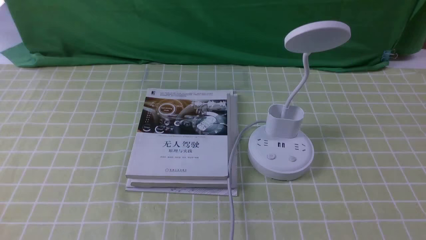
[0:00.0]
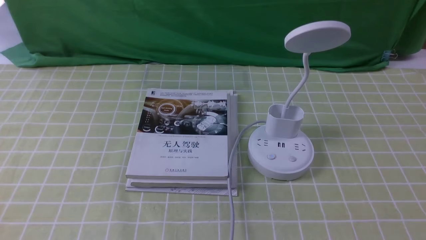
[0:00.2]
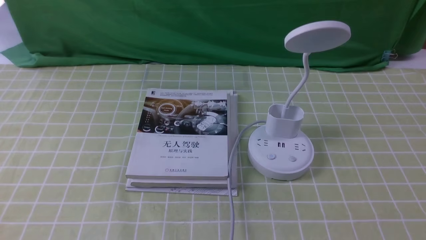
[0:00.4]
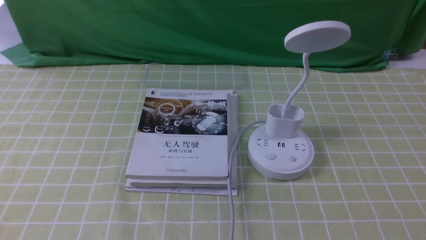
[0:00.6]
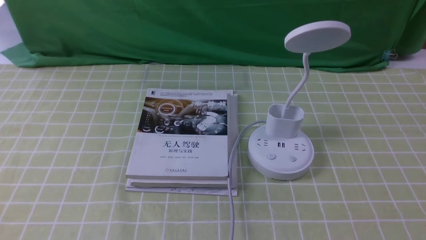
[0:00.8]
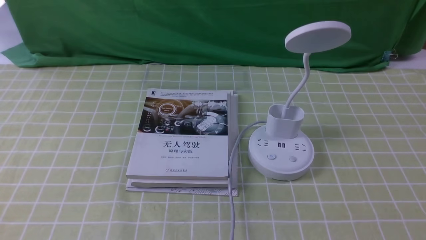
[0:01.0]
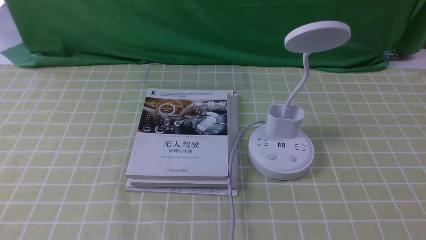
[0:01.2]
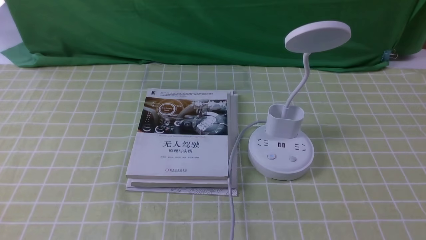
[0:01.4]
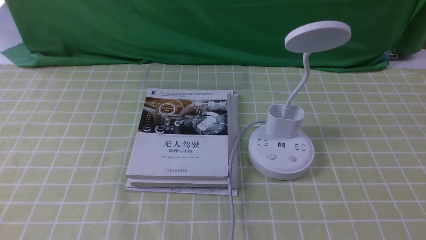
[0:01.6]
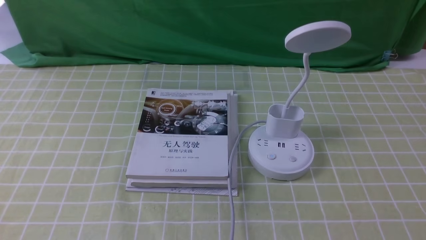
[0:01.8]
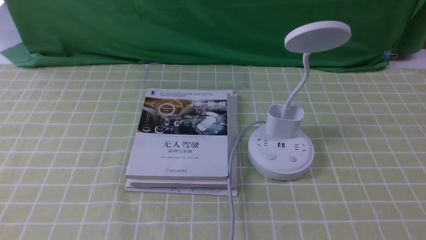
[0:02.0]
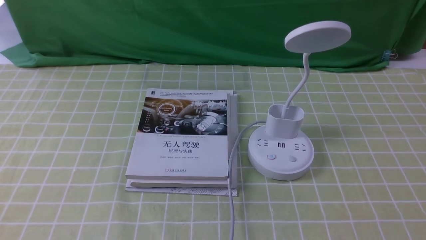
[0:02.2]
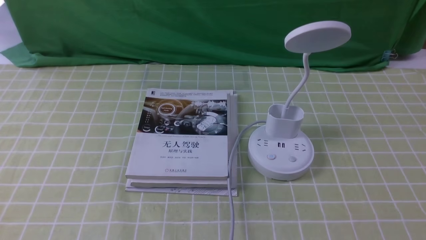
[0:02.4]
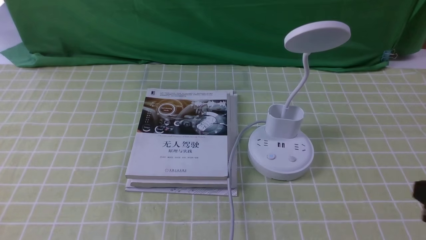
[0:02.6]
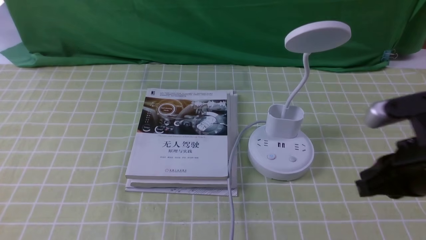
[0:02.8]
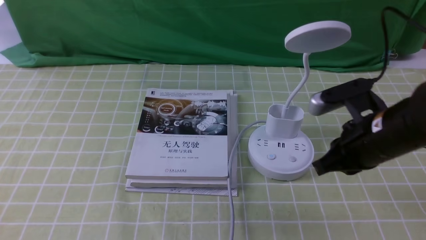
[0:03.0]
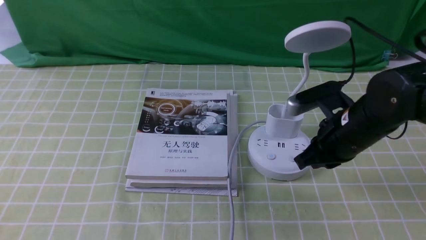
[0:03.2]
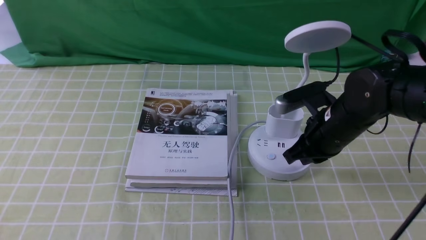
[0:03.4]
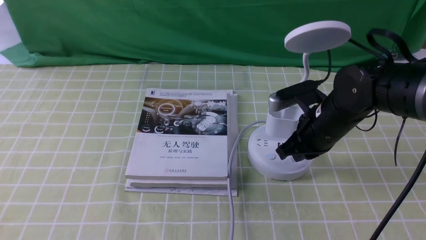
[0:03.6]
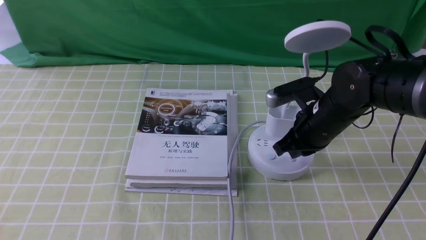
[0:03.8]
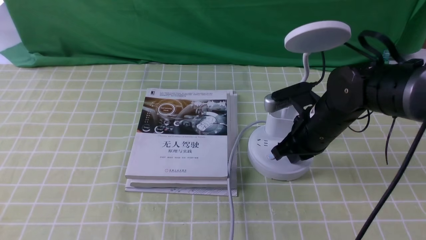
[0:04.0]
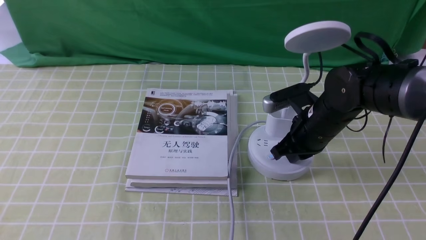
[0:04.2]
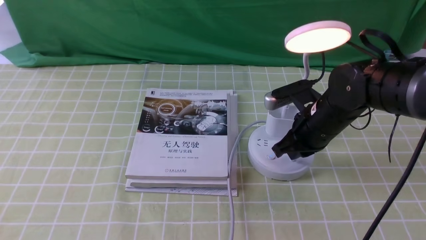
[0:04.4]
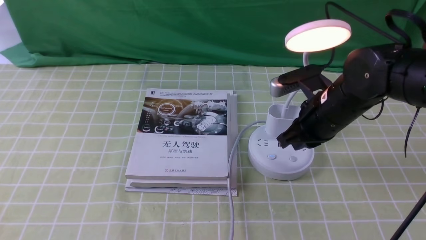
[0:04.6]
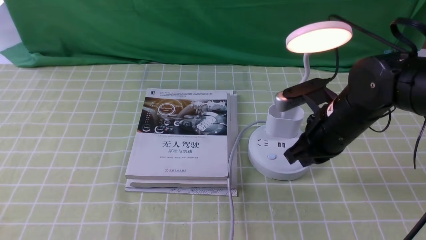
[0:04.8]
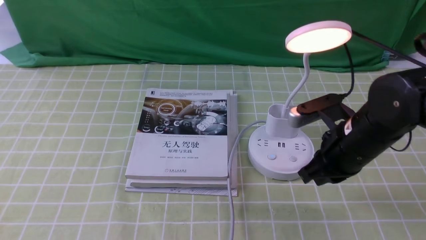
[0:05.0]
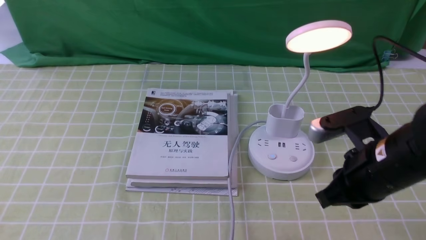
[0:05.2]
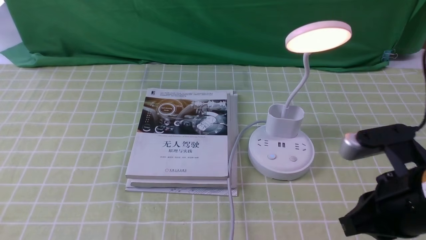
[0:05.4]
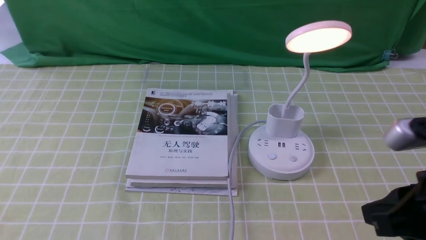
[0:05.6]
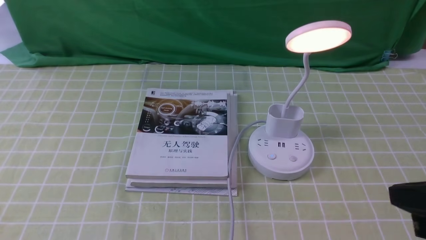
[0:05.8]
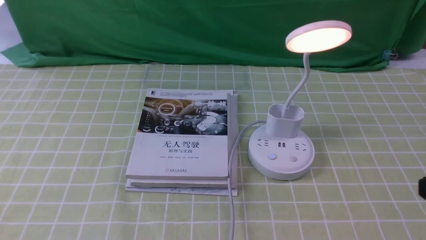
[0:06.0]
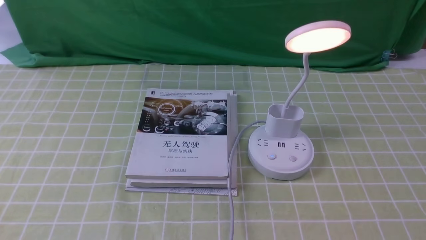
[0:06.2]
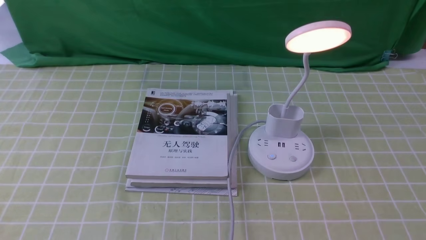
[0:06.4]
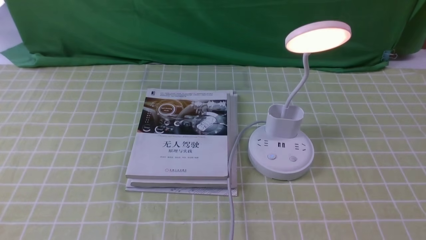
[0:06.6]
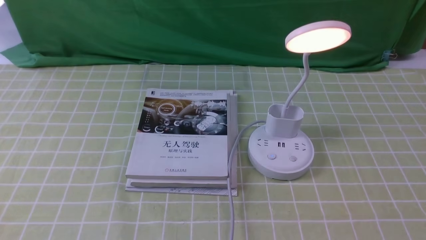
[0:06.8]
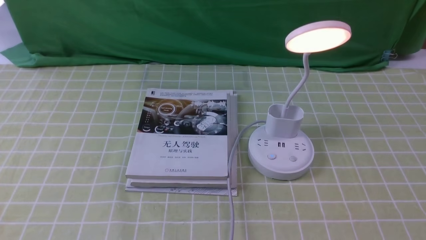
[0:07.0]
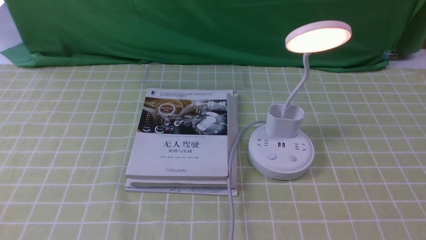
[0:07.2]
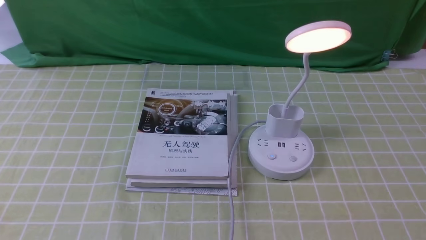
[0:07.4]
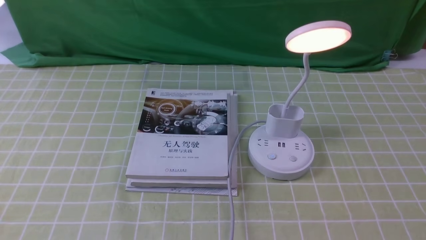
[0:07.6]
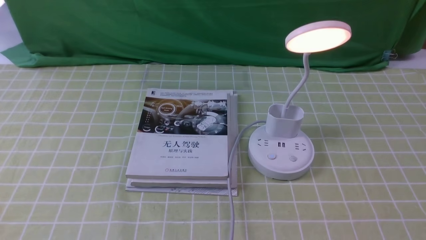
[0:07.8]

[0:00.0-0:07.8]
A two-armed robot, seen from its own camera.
Step, 0:00.0 to 0:04.6: use the right arm to press the button switch on the lamp holder.
0:01.6 to 0:03.2: The right gripper heads forward and to the left, covering some 30 cm, and closes up.
0:04.6 to 0:06.2: The right gripper shifts roughly 30 cm backward and to the right.

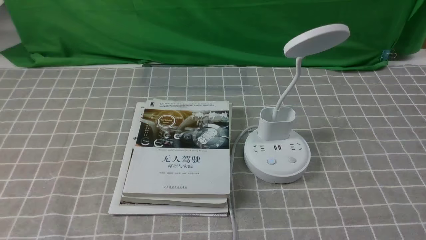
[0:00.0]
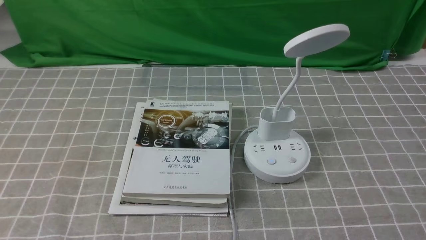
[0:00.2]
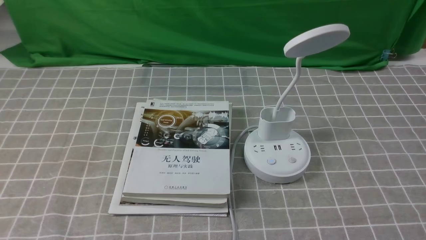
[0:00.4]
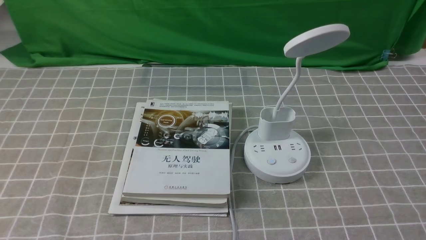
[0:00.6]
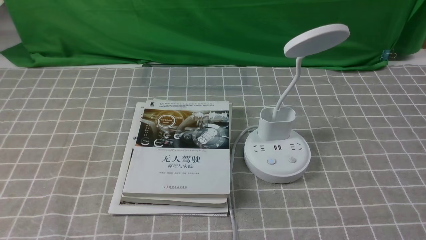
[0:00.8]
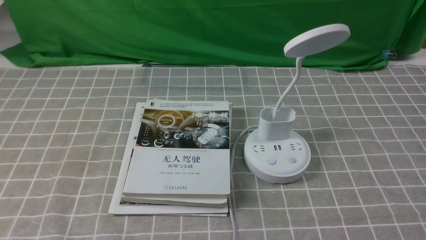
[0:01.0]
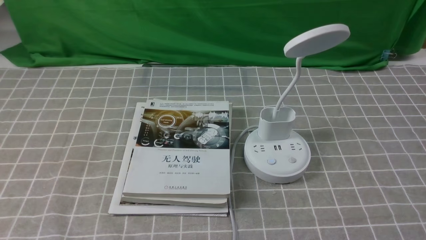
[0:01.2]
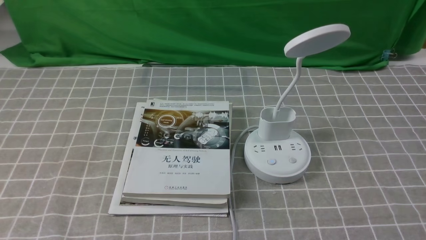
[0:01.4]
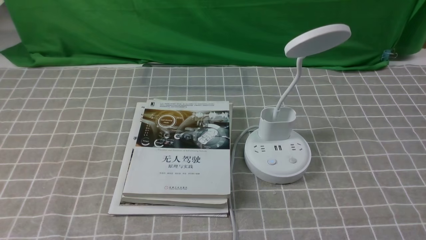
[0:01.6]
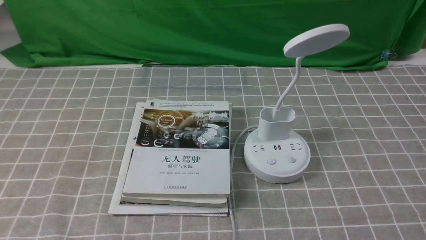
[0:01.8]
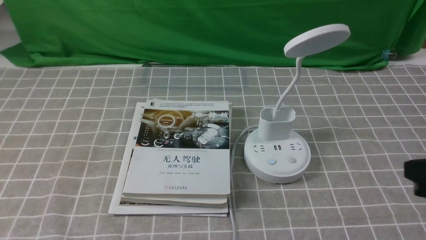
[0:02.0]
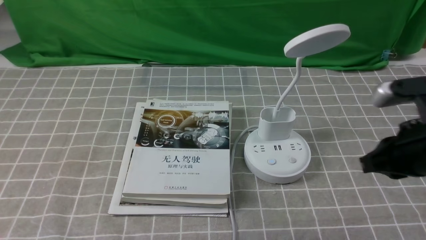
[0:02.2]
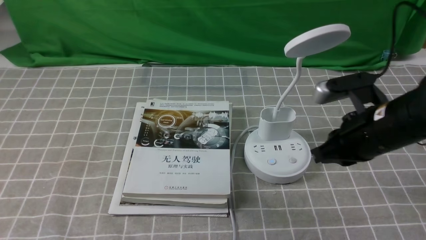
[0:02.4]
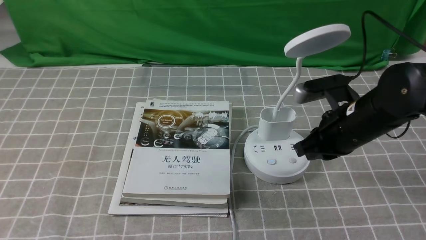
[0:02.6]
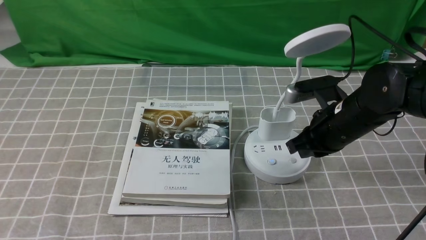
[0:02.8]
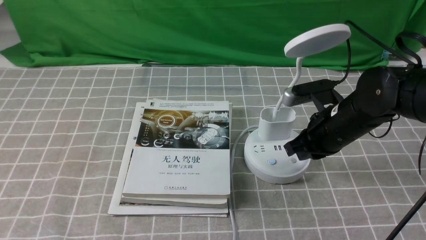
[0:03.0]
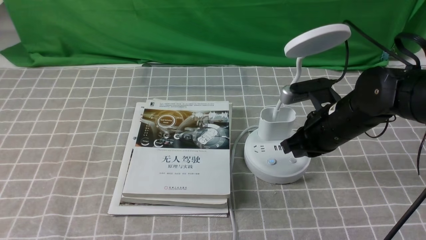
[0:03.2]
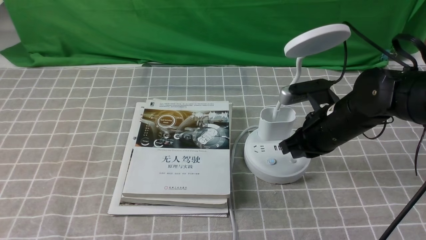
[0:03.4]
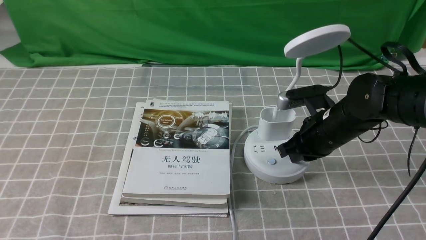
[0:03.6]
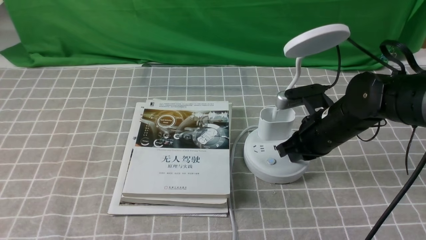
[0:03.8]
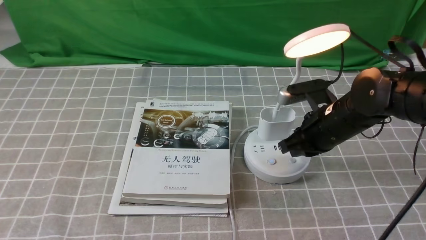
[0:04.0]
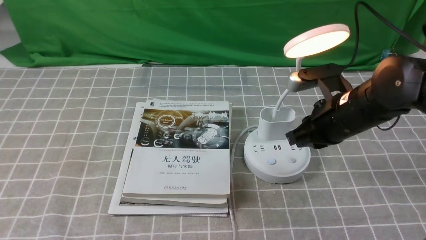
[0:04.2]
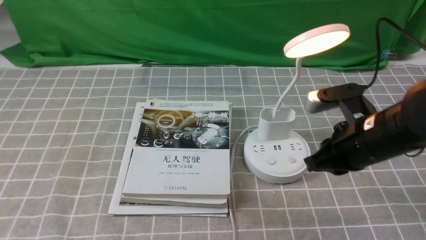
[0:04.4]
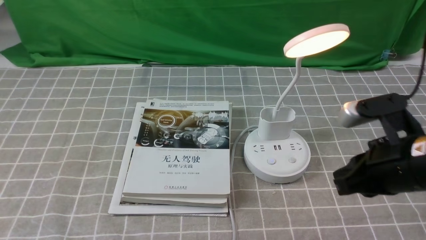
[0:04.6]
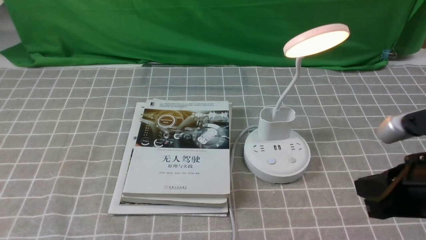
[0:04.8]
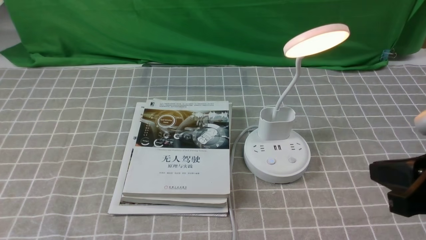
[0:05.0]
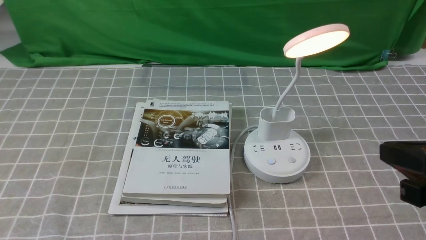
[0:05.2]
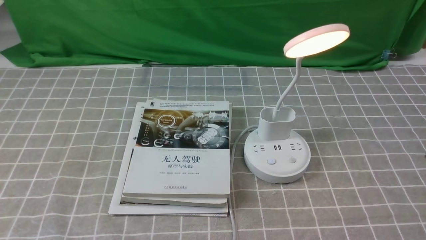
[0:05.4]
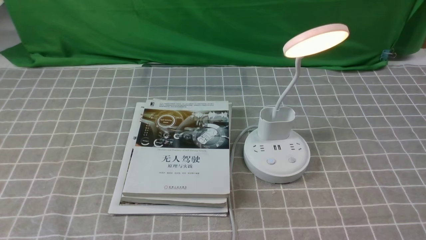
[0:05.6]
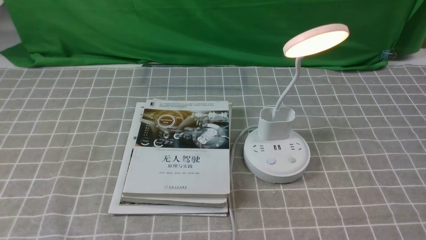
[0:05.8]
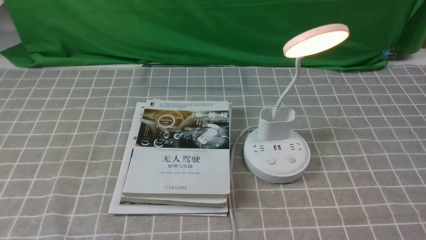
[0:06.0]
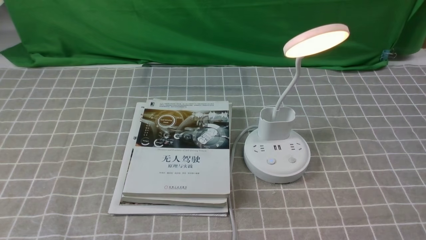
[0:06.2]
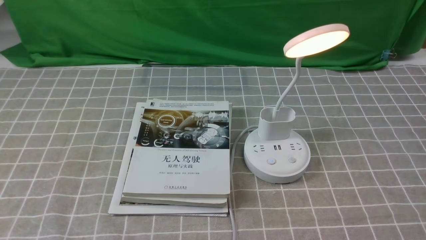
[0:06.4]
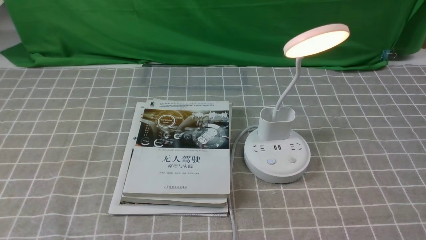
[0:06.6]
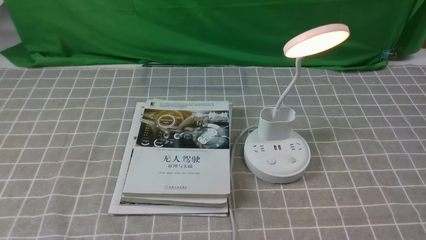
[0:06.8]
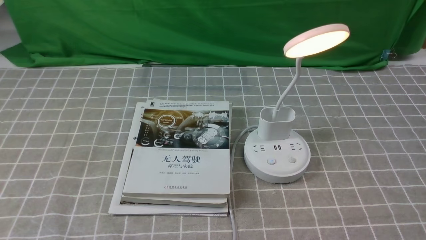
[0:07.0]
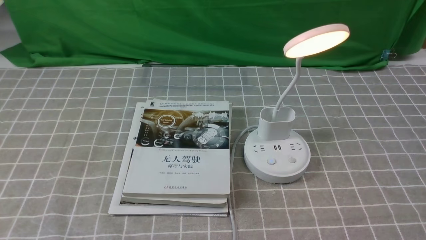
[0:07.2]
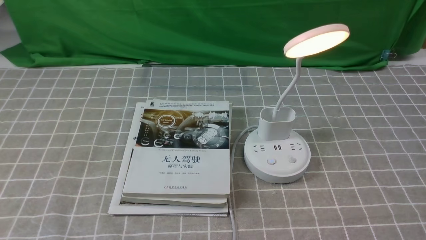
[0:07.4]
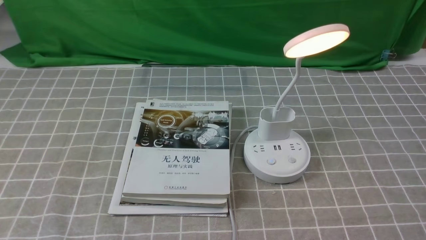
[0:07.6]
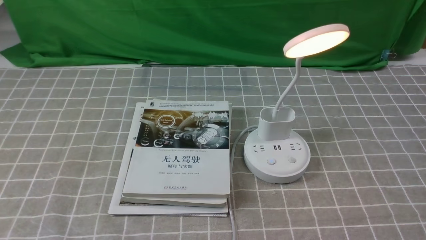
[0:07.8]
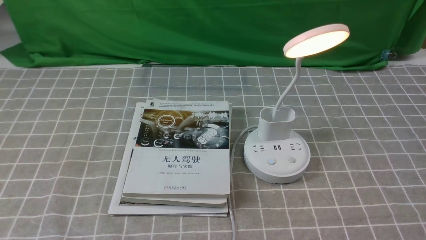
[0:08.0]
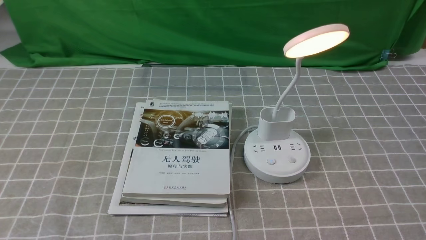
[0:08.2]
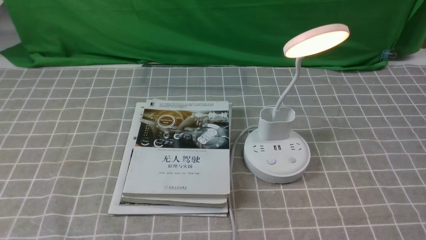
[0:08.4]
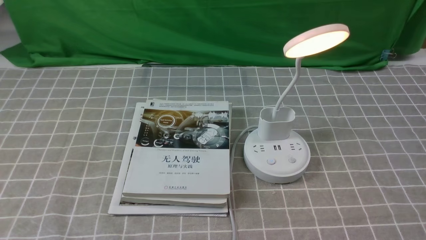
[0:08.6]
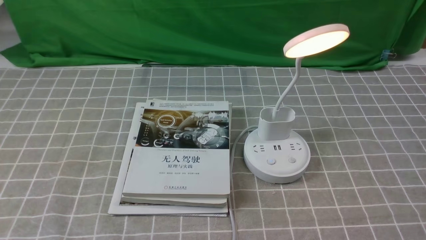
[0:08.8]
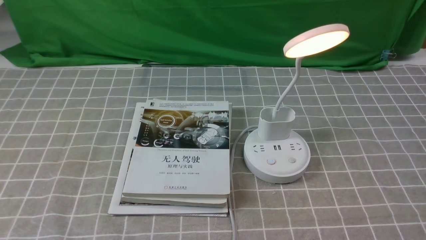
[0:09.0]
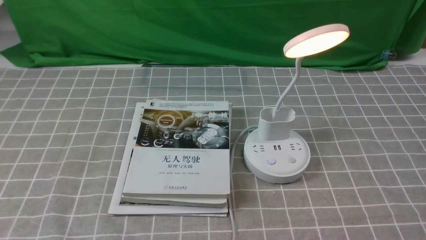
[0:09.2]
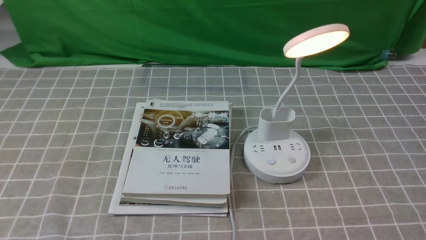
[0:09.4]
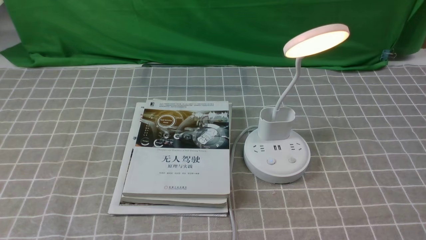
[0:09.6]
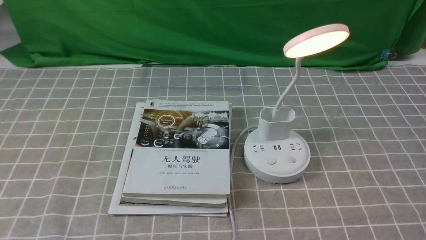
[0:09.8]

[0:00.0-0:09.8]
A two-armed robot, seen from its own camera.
Step, 0:00.0 to 0:04.2: use the right arm to press the button switch on the lamp holder.
0:01.4 to 0:02.8: The right gripper goes about 30 cm forward and to the left, and closes up.
0:02.8 to 0:04.2: The grippers make only small movements.
0:04.2 to 0:05.6: The right gripper goes about 25 cm backward and to the right.
0:08.4 to 0:09.8: Both grippers stay put.
